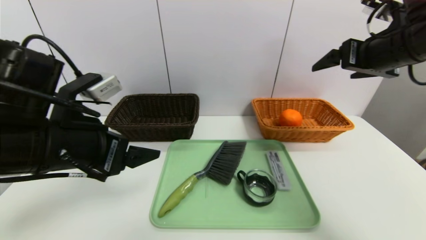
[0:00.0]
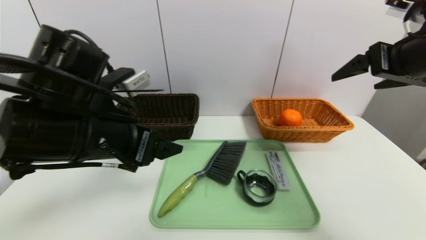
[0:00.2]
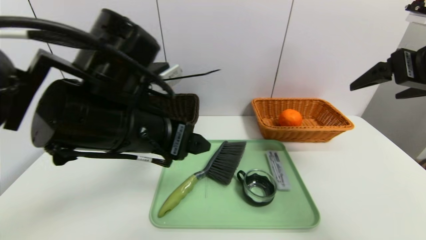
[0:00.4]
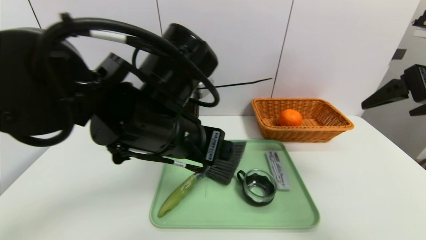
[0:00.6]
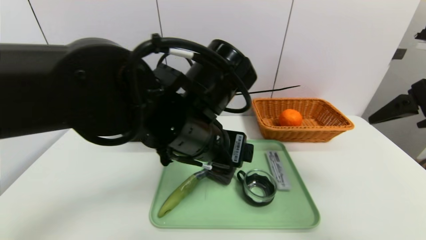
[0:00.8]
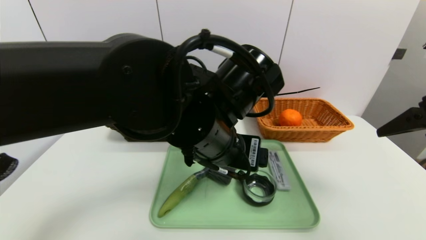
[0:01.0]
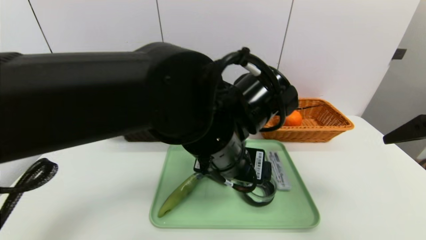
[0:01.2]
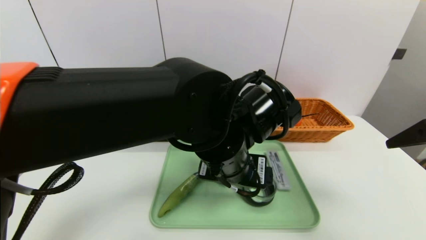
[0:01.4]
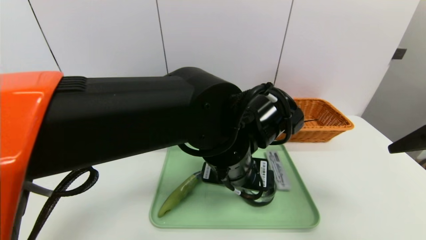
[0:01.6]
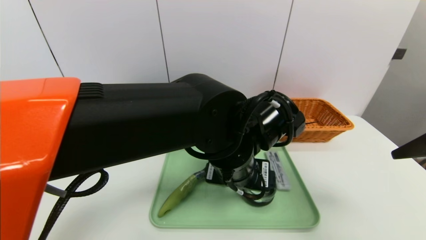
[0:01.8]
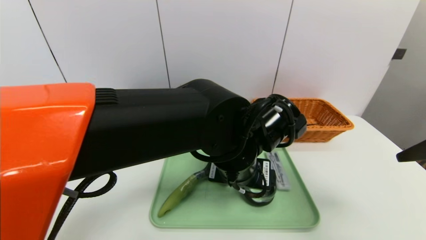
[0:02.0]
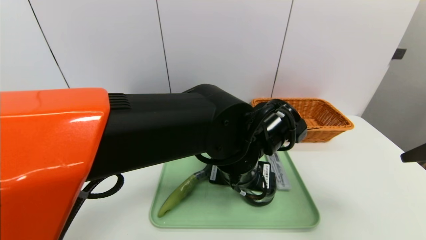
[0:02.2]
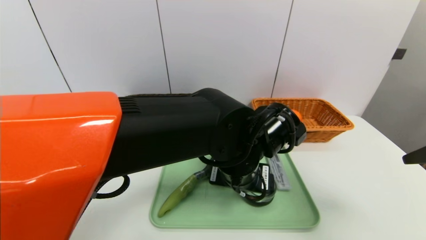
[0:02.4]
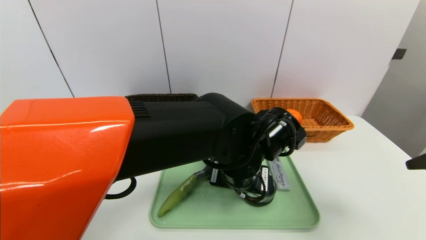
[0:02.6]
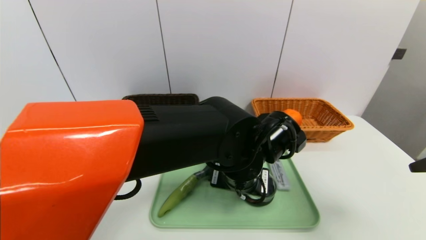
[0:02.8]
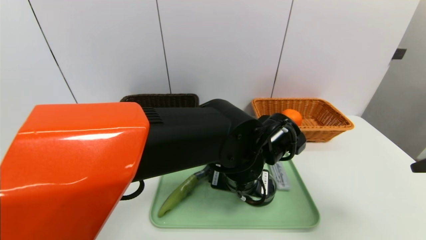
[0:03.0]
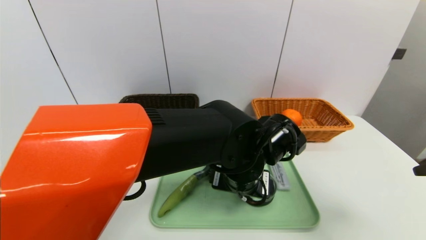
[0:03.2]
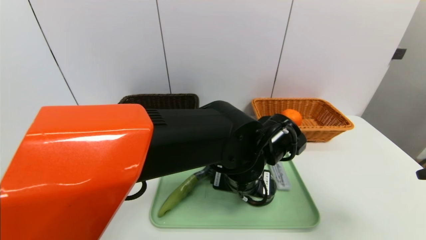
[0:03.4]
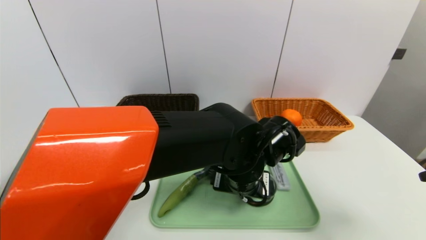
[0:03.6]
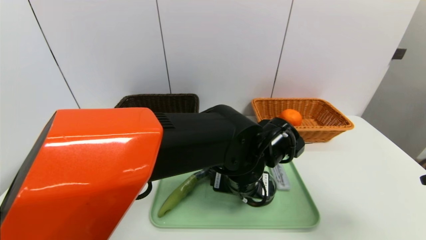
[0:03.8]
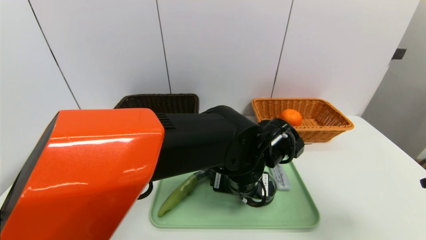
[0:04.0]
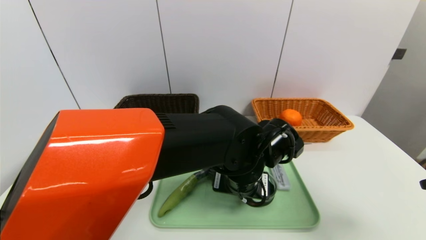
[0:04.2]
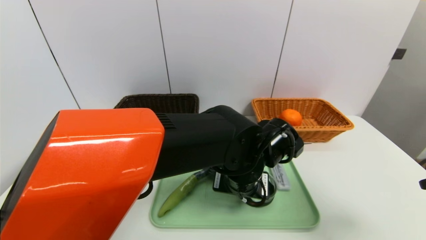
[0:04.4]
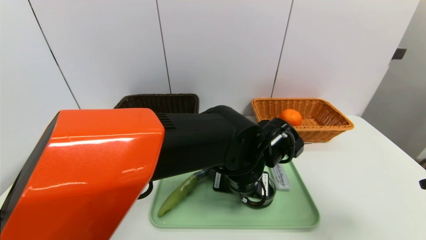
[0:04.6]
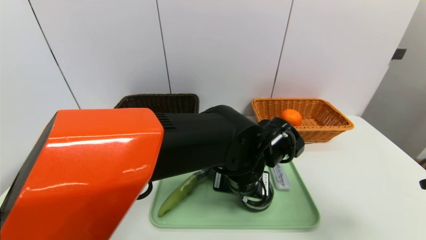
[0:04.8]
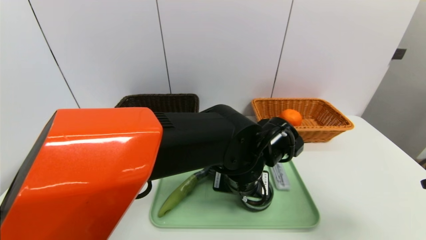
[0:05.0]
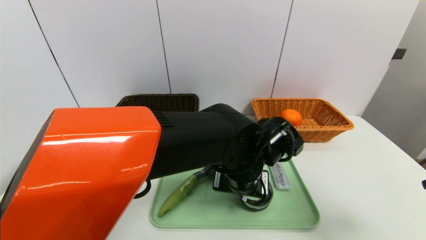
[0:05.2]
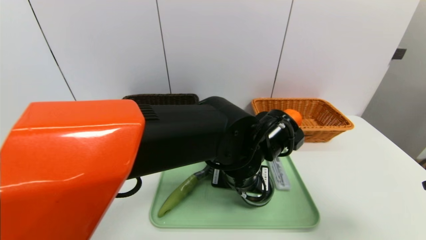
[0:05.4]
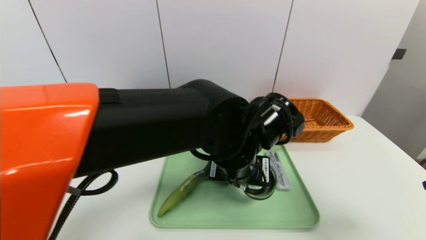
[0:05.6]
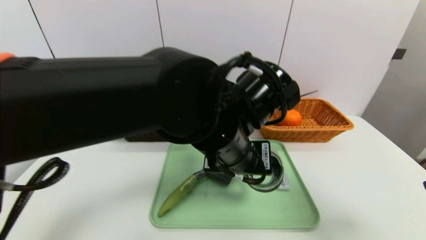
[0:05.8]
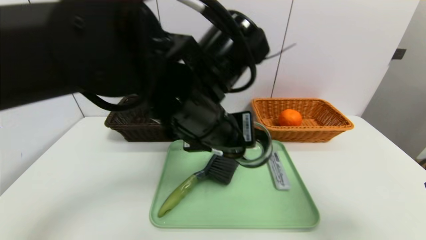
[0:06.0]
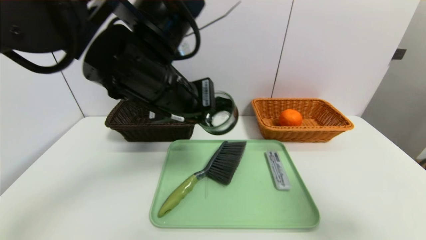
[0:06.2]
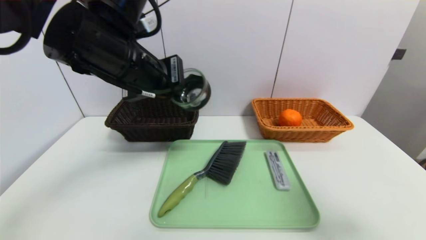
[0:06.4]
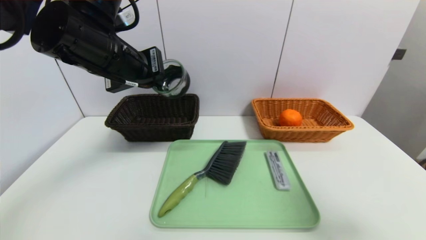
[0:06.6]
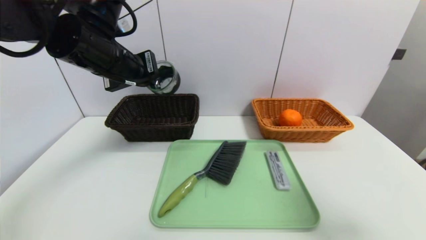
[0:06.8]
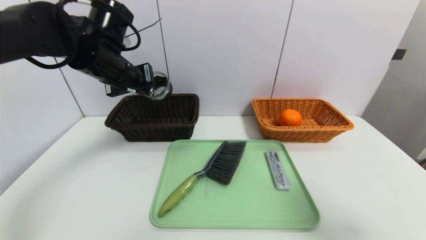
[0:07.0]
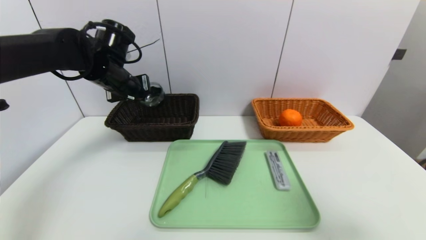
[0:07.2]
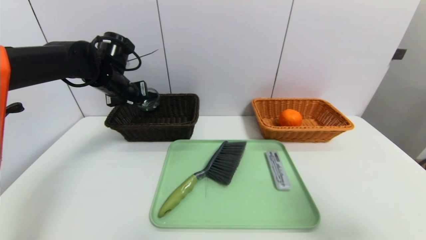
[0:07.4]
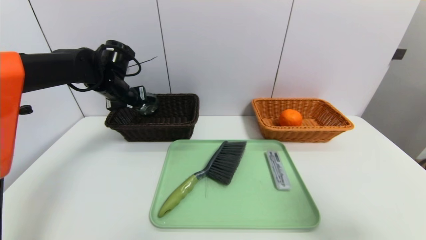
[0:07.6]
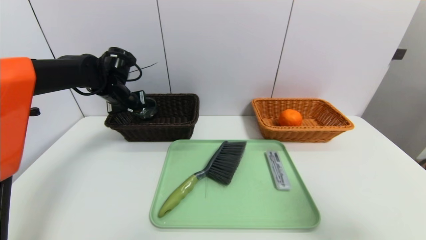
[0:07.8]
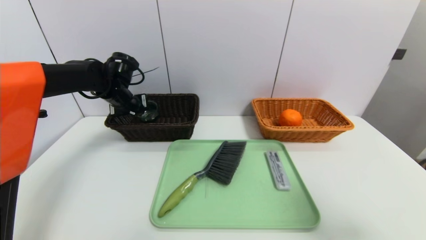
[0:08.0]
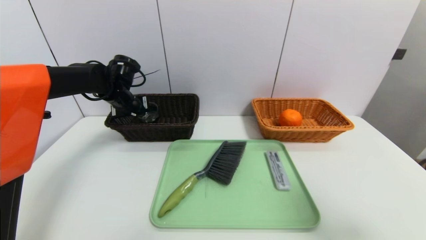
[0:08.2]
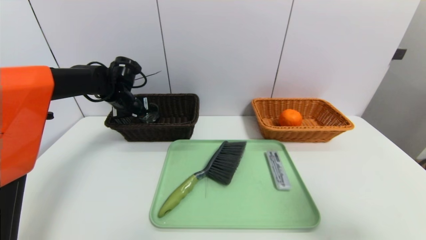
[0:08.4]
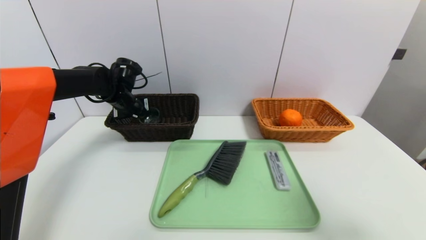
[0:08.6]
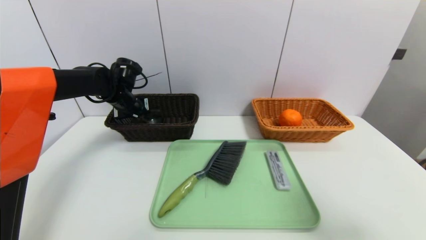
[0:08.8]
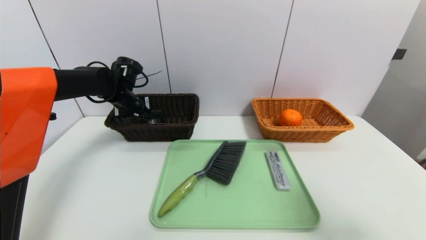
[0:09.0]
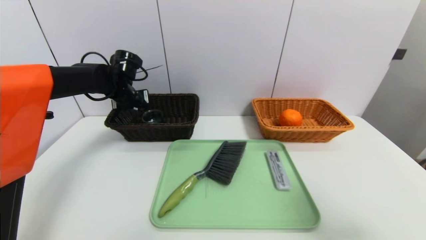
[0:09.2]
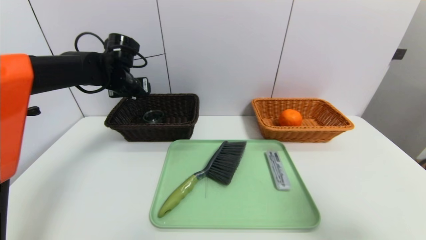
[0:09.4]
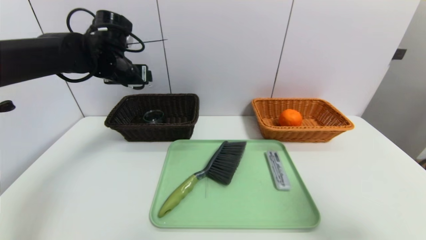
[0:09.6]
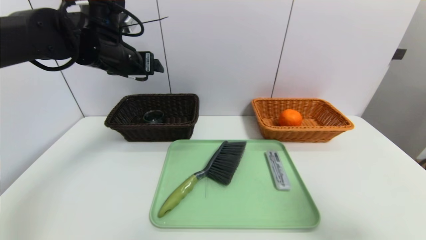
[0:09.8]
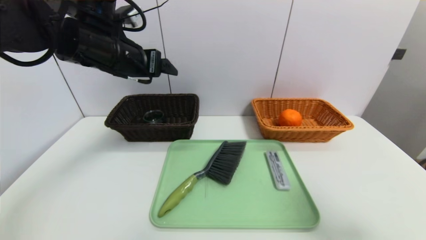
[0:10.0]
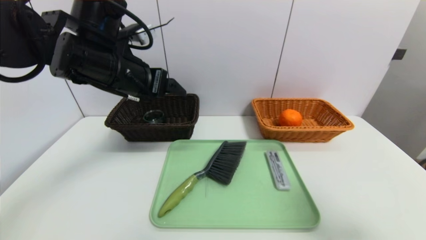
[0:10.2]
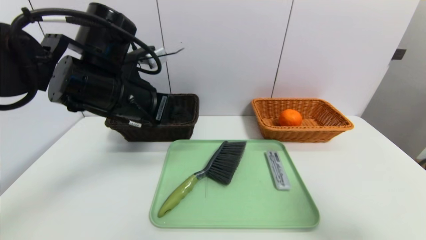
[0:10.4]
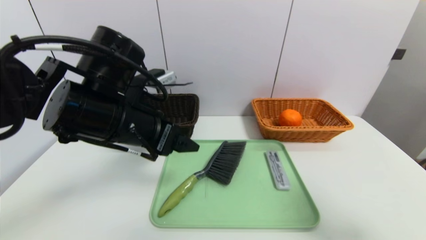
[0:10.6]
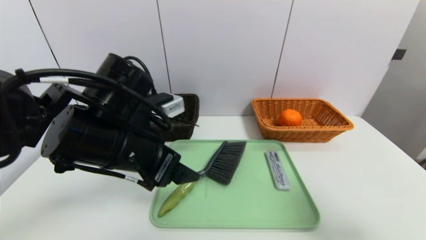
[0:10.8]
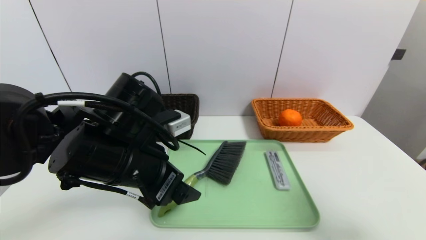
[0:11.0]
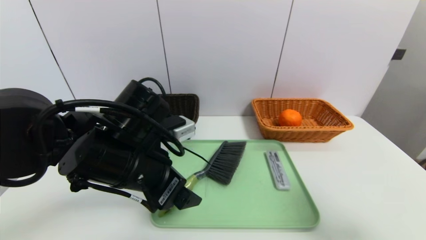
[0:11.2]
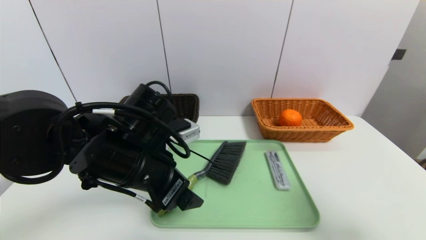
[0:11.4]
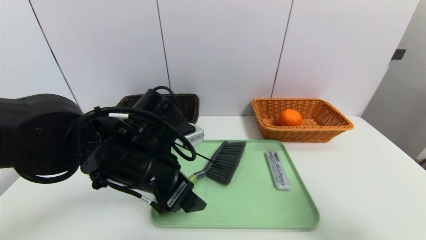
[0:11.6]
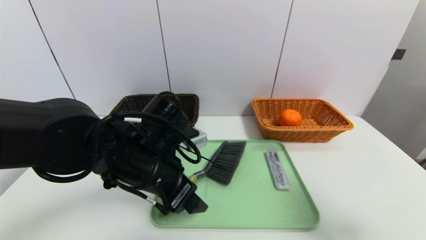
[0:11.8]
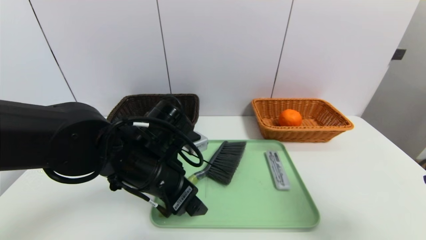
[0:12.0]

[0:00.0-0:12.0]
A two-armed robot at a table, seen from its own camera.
Task of the whole recording: place the food in the right basket with the right gripper, and place the non food items in the left basket with the left gripper.
Step, 0:00.0 to 0:09.0: Grasp the black glass cup and put it in the left basket.
0:00.0 to 0:01.6: The left gripper moves to the right, roughly 20 cm. The right gripper heads backward, covering about 15 cm.
0:01.6 to 0:03.0: The left gripper changes place by approximately 5 cm.
0:03.0 to 0:04.4: The left gripper closes up.
0:04.4 to 0:06.0: The left gripper moves upward and to the left, approximately 15 cm, and closes its fingers.
0:06.0 to 0:07.6: The left gripper is displaced to the left and forward by approximately 30 cm.
0:07.6 to 0:09.0: The left gripper opens its fingers.
0:09.0 to 0:10.4: The left gripper is displaced backward, upward and to the right by about 25 cm, and opens its fingers.
0:10.4 to 0:12.0: The left gripper moves downward, roughly 10 cm.

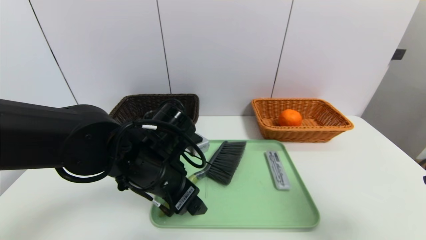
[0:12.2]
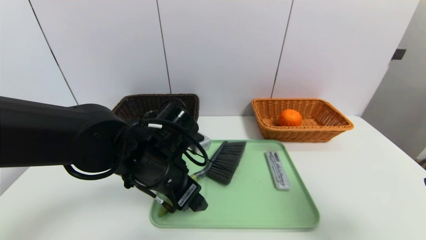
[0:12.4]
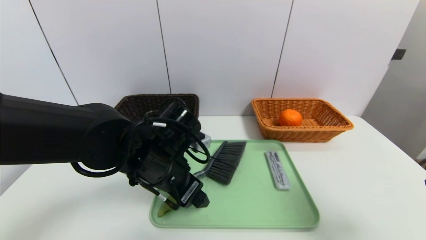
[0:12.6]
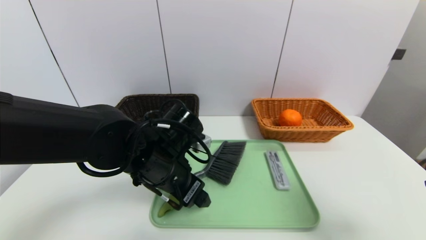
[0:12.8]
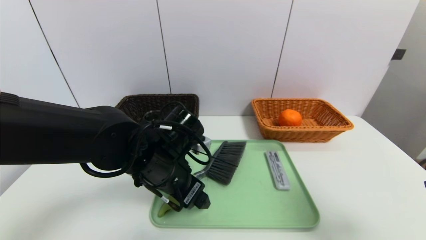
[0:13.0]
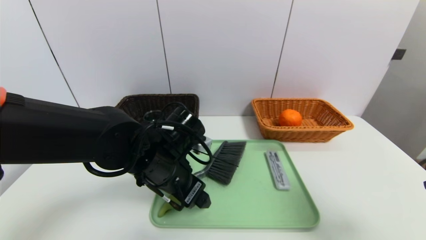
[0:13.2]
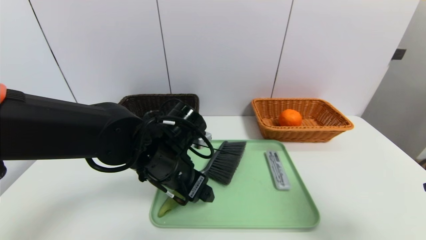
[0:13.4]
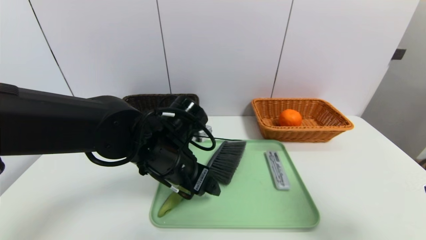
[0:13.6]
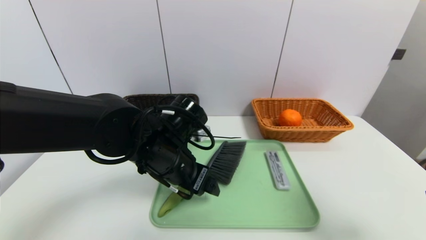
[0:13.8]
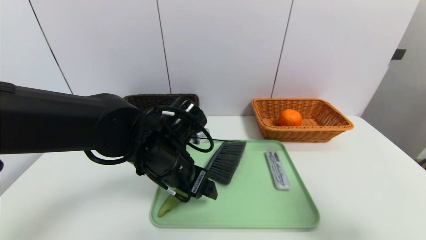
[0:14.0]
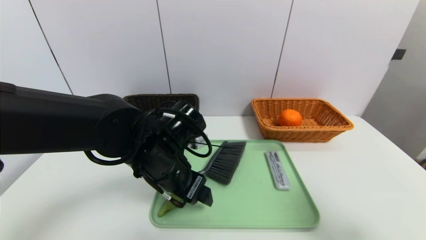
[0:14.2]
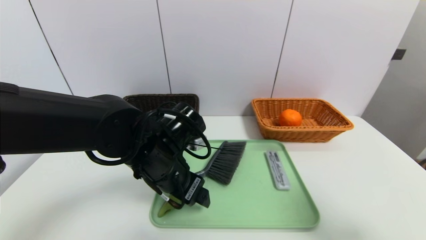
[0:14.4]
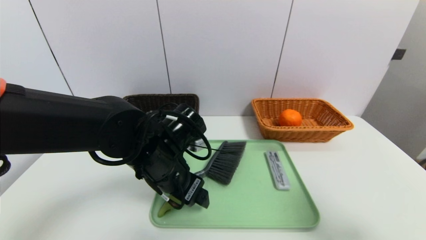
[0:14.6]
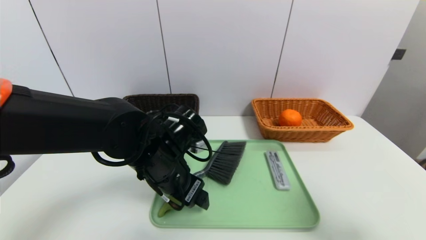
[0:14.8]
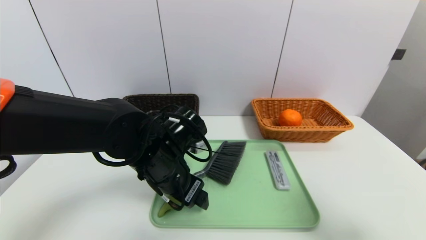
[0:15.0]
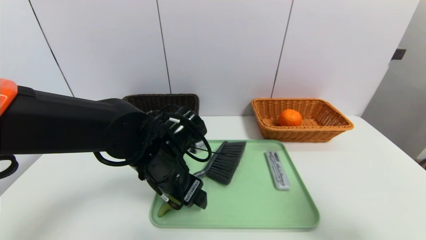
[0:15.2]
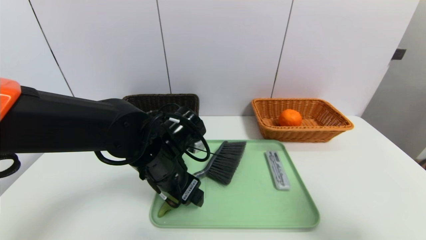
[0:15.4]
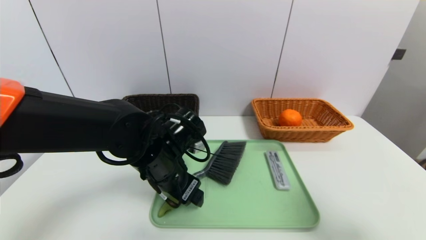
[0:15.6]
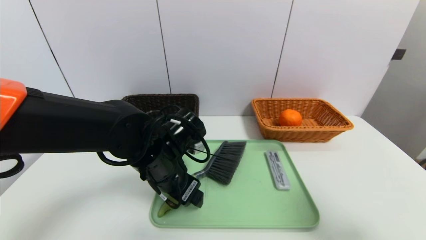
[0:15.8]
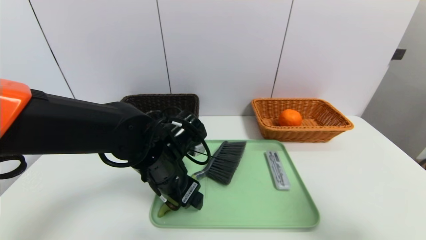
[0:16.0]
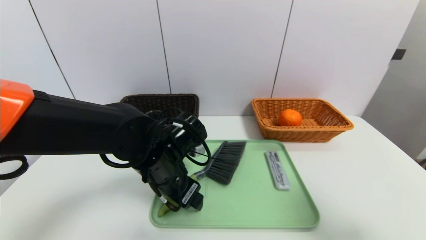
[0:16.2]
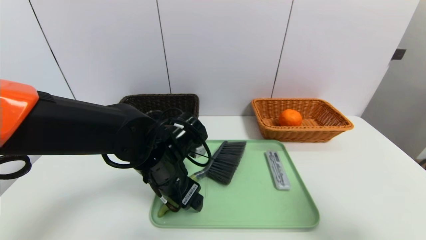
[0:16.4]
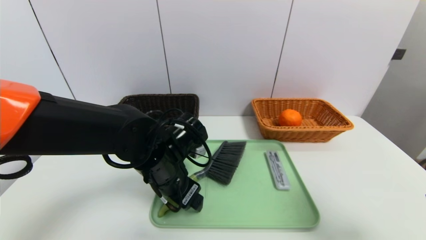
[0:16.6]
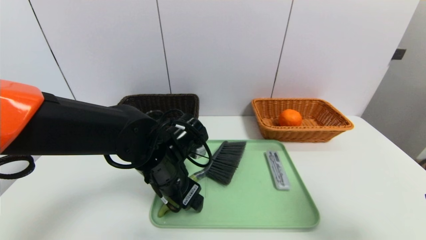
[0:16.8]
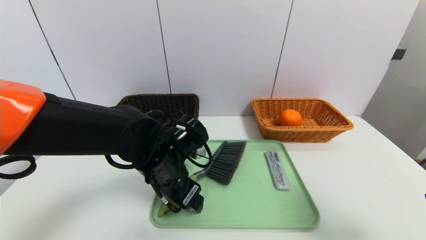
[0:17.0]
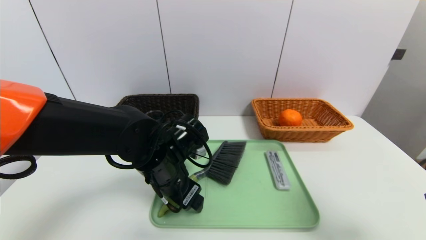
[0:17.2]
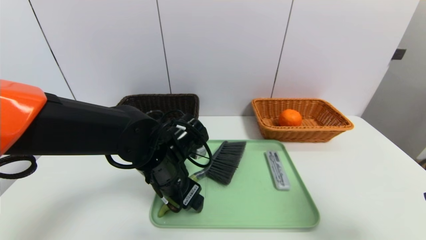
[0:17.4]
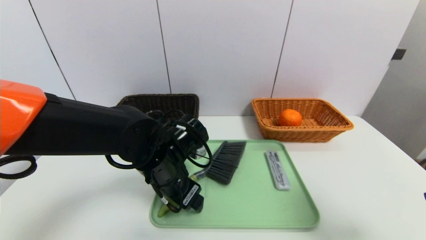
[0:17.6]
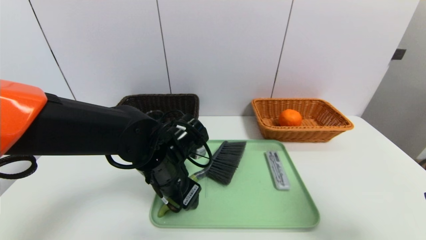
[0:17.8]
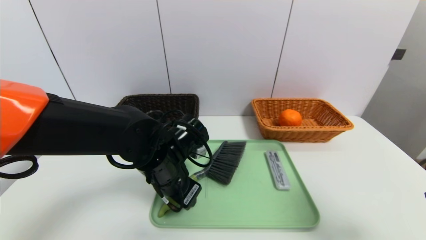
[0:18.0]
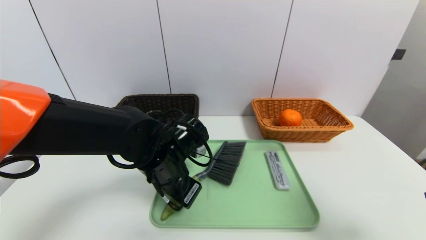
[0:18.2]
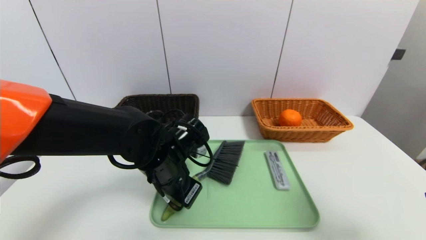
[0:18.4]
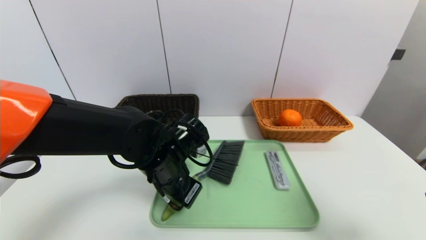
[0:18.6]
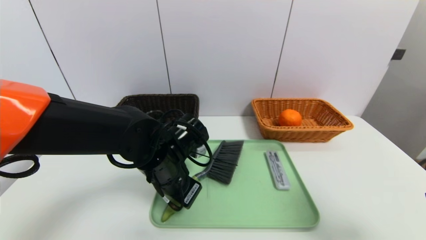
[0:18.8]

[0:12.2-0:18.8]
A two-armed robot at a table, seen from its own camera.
Task of the whole recording: place the food in the right basket with the right gripper, and place the non food items in the left basket with the left gripper.
0:12.2 to 0:17.2: There are only small adjustments of the grippers.
0:17.2 to 0:18.8: The left gripper closes its fingers.
